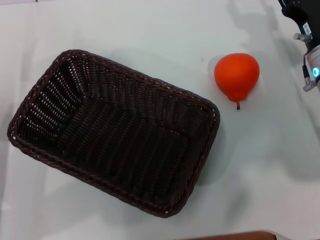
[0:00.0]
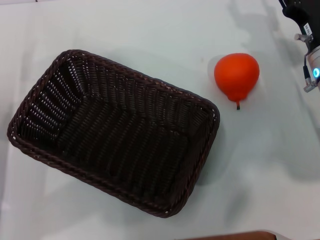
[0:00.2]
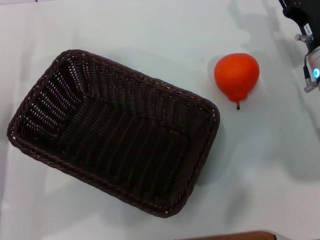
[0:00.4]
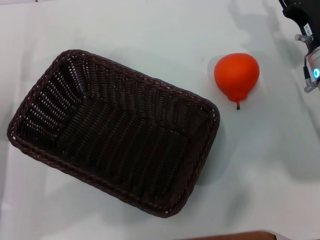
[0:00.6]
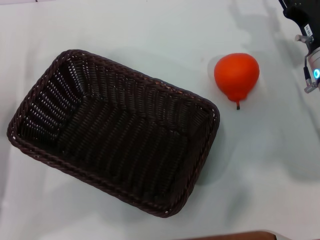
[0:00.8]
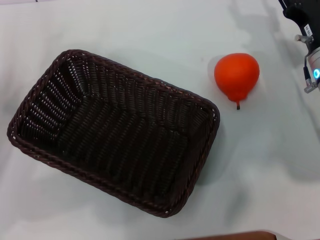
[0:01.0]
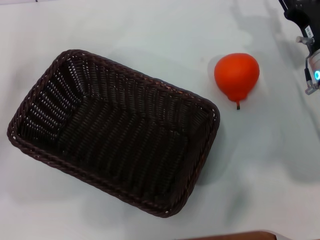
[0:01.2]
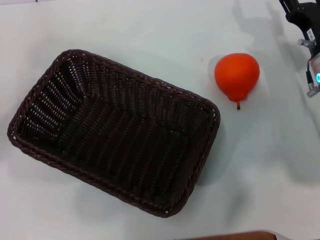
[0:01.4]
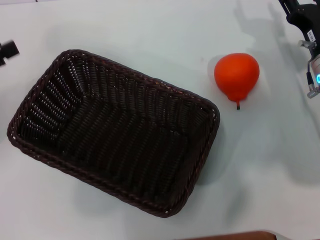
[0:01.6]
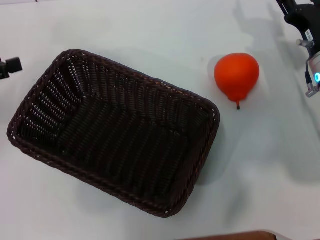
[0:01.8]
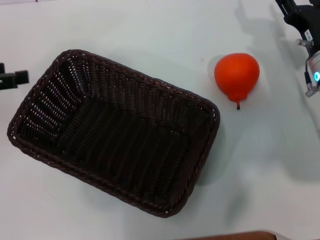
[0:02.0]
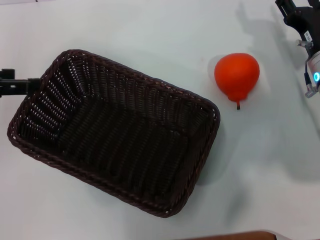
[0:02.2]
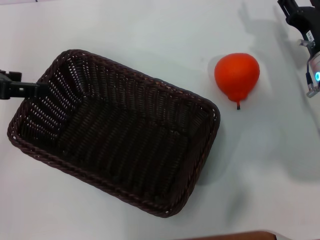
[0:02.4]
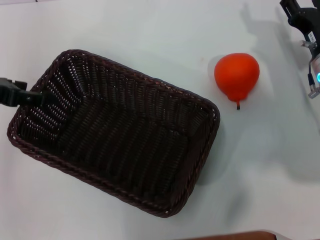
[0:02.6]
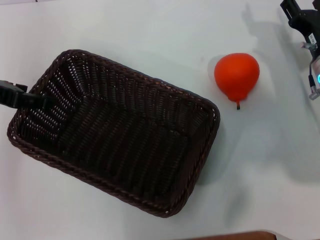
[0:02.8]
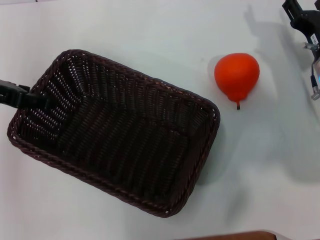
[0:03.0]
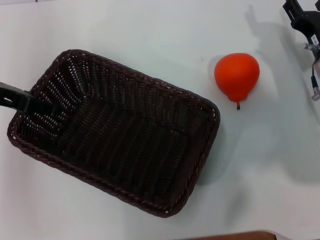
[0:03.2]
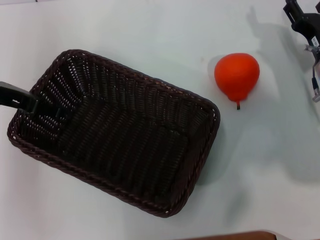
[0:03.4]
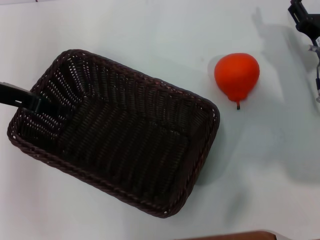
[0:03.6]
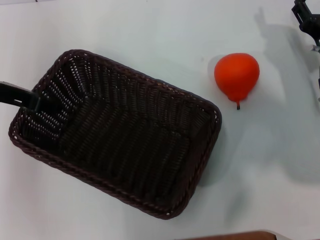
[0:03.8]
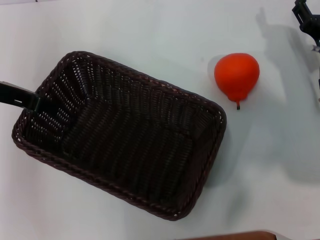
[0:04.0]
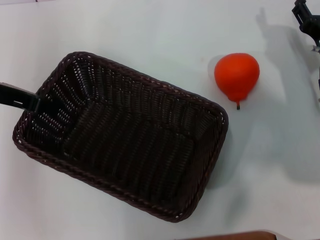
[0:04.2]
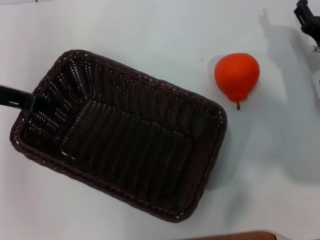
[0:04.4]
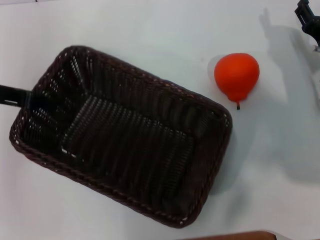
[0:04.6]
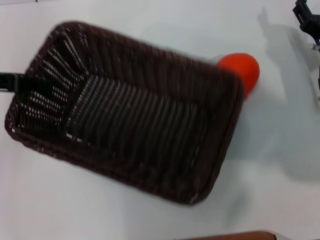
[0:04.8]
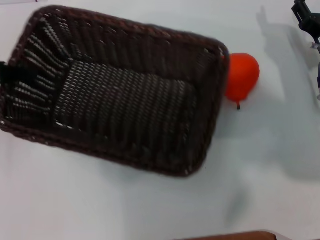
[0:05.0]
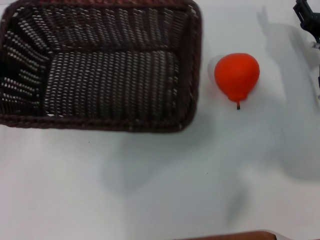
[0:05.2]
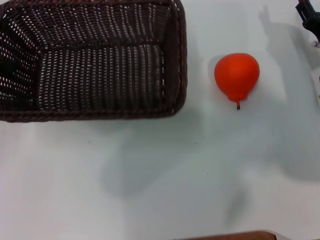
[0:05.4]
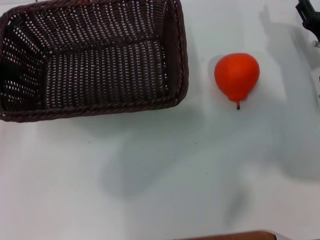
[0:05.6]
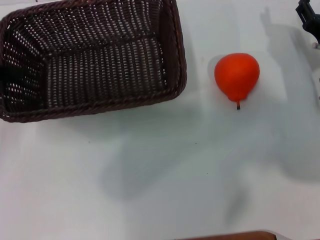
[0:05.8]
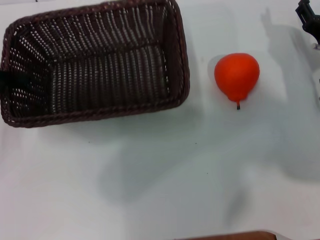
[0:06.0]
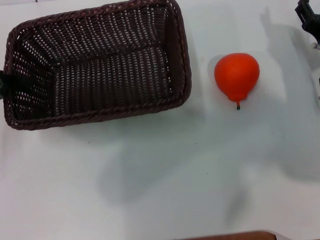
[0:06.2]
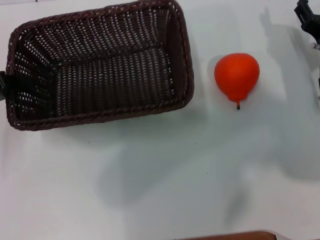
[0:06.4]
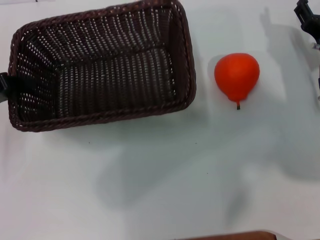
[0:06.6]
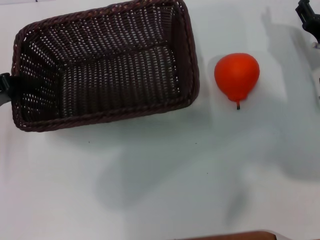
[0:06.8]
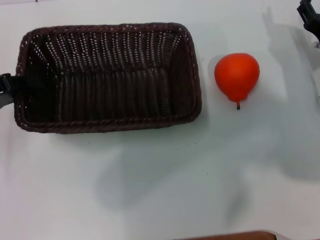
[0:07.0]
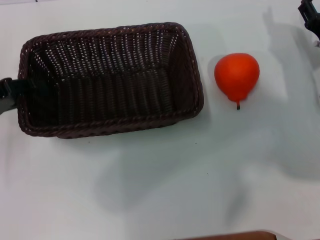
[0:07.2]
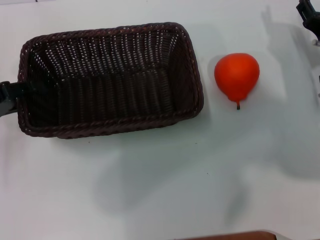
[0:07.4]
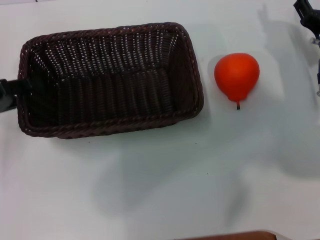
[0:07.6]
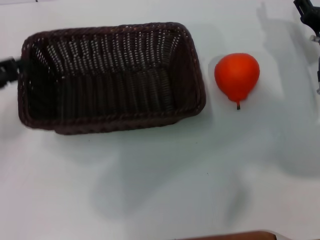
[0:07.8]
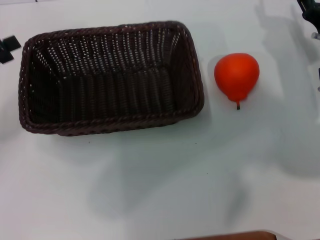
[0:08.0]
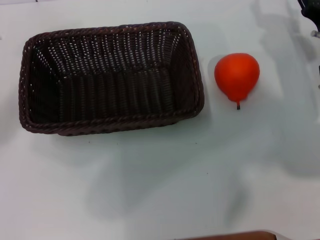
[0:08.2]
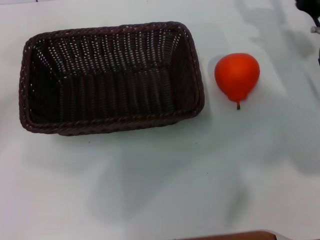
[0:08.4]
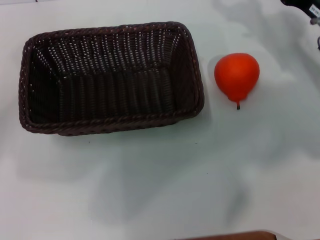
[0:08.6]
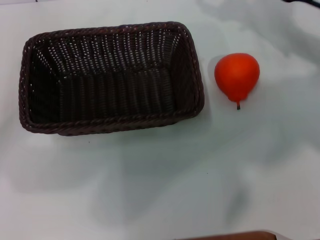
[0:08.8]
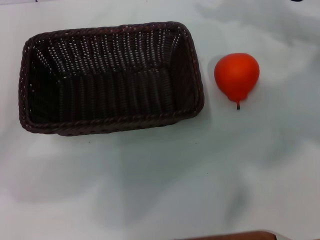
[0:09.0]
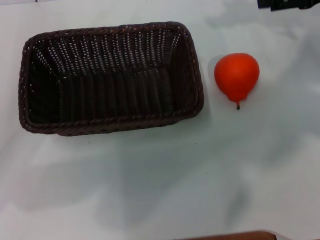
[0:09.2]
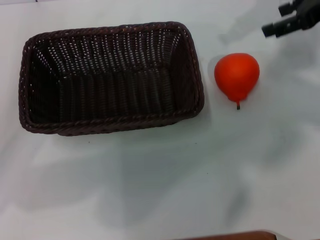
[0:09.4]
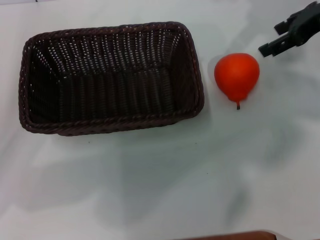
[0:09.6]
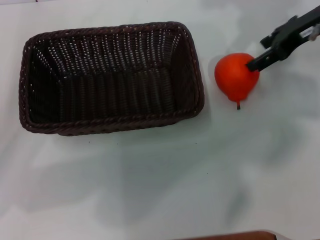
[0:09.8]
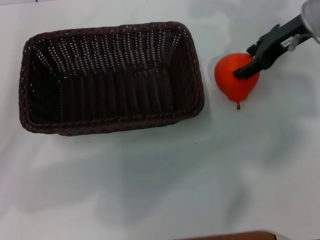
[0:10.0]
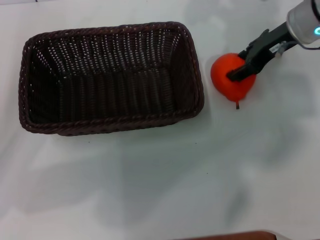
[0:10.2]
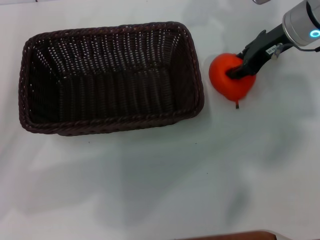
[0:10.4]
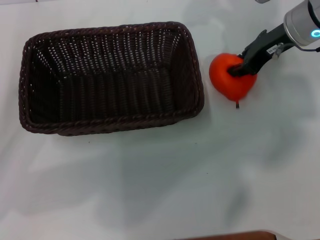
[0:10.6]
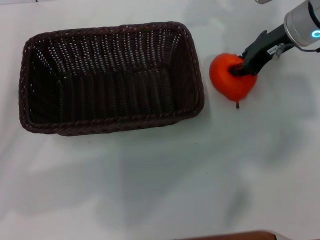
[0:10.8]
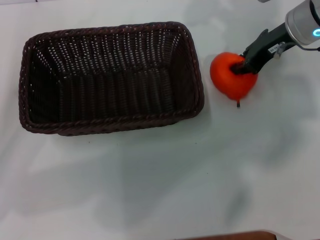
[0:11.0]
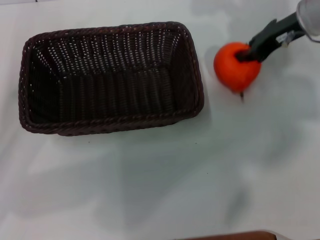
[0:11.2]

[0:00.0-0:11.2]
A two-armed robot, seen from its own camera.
Task of the whole recording: the left gripper pick up the black basket and place it horizontally in the middle of the table, the right gripper pick up the orange and place it into the black basket.
Step, 0:00.0 to 0:04.4: Pick up the dark basket with the left gripper.
Step, 0:04.6 to 0:07.8: Place the dark basket in the center of view with the left gripper.
0:00.0 to 0:01.6: The left gripper travels upward and to the left by about 10 cm.
0:01.6 to 0:03.2: The left gripper is displaced to the right by roughly 10 cm.
0:03.2 to 0:04.8: The left gripper closes.
0:04.8 to 0:06.4: The left gripper shifts roughly 5 cm downward.
0:06.4 to 0:08.0: The left gripper opens up.
0:08.0 to 0:09.6: The right gripper goes approximately 15 cm upward; the left gripper moves about 5 cm.
0:09.6 to 0:11.2: The right gripper moves roughly 5 cm, and closes its fingers.

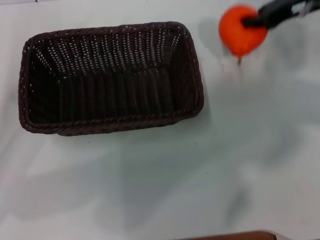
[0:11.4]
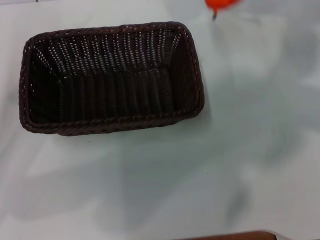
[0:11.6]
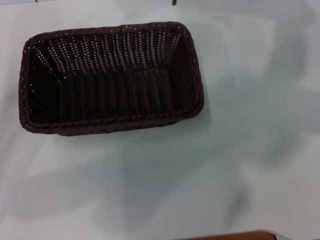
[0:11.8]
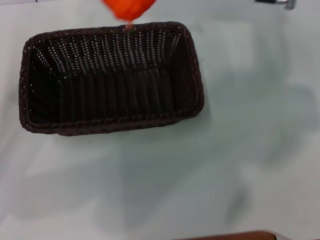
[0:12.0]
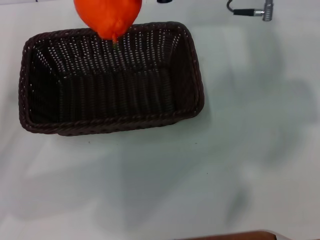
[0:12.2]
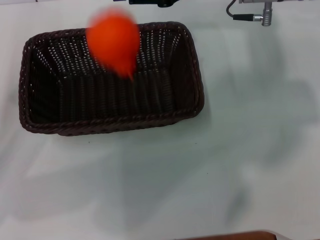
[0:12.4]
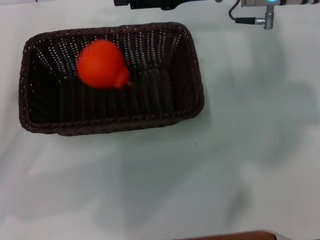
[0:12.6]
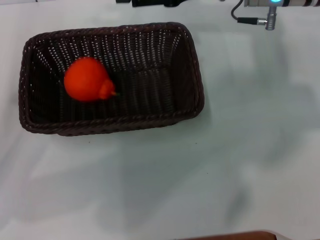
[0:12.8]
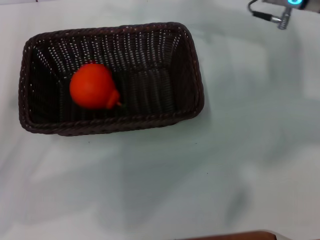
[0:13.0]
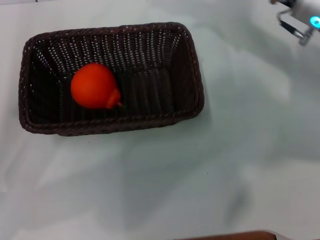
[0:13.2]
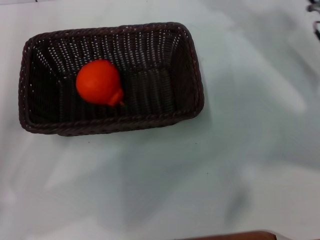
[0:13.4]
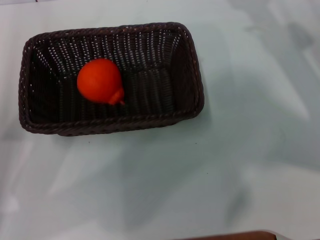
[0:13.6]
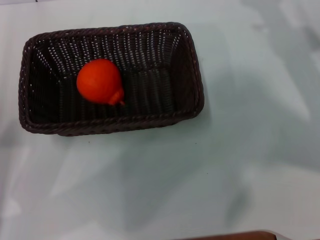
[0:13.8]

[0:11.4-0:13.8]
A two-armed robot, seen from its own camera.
Task of the whole recording: the left gripper pick up the black basket and place it horizontally in the middle of the table, the right gripper pick up the orange and place it into the black basket.
Step, 0:11.4 to 0:12.4: Place the orange into the dark basket with the right gripper.
0:11.4 to 0:12.6: The right gripper goes some 10 cm to the left.
0:12.6 to 0:13.8: The right gripper heads to the right, downward and backward, covering approximately 20 cm, and opens up.
